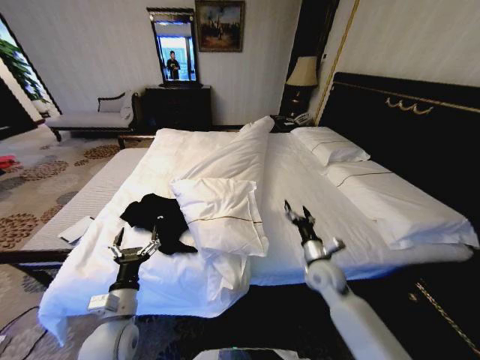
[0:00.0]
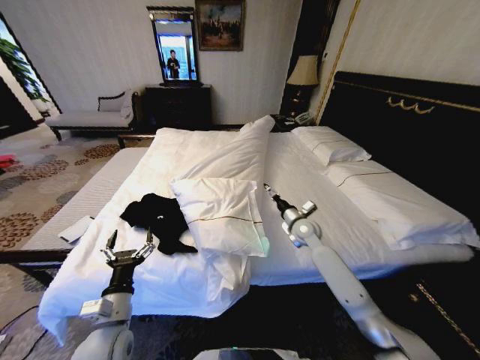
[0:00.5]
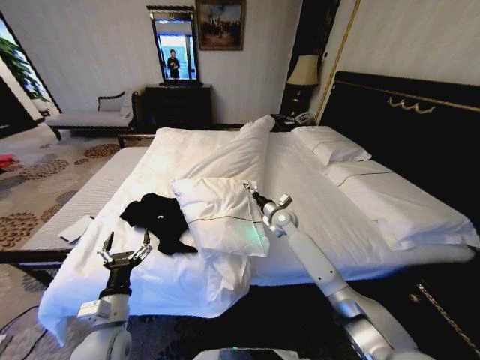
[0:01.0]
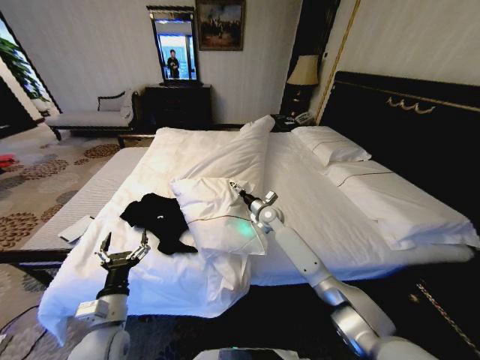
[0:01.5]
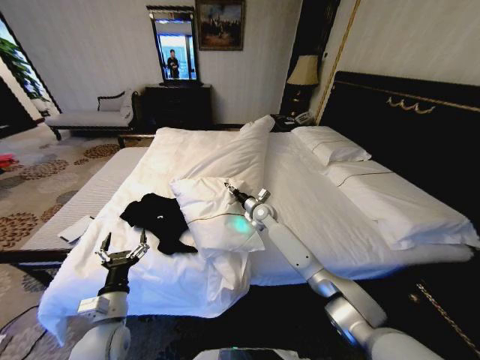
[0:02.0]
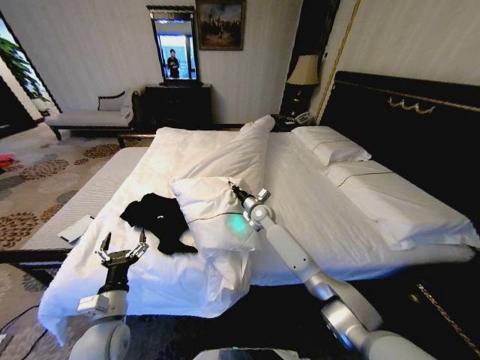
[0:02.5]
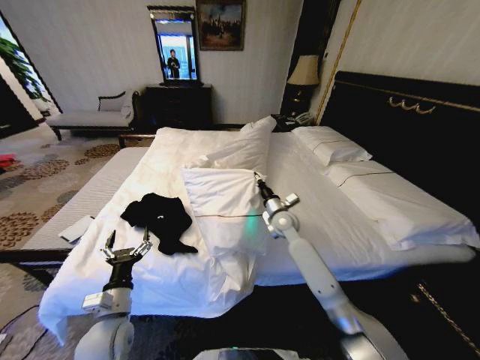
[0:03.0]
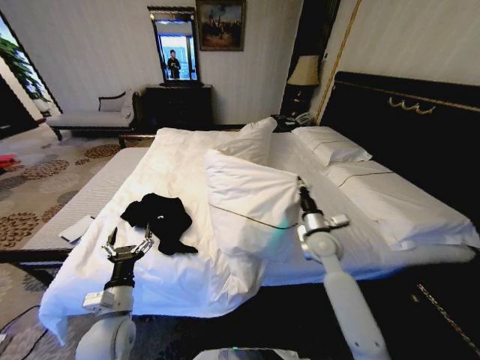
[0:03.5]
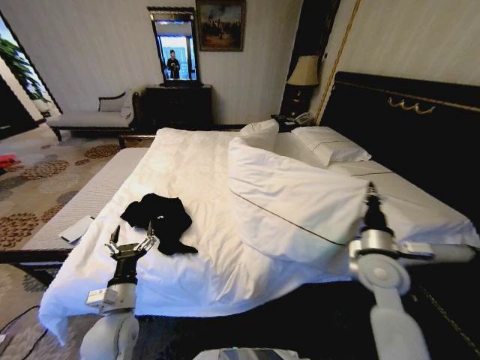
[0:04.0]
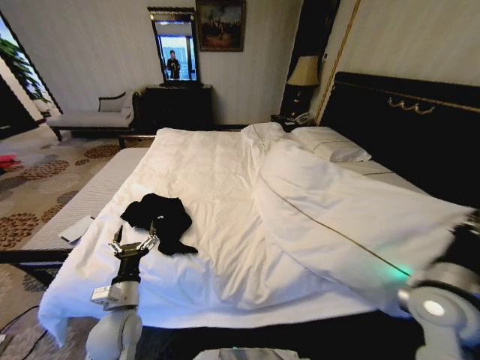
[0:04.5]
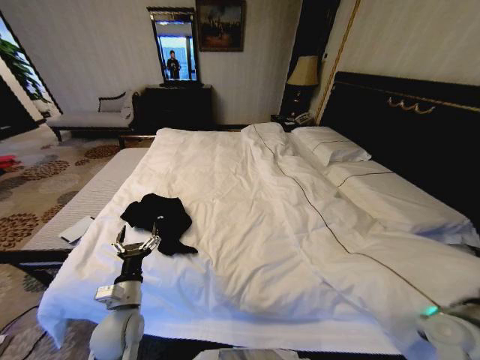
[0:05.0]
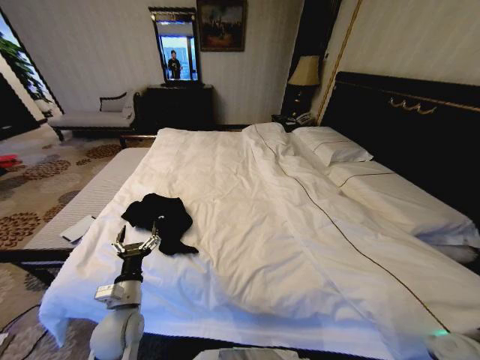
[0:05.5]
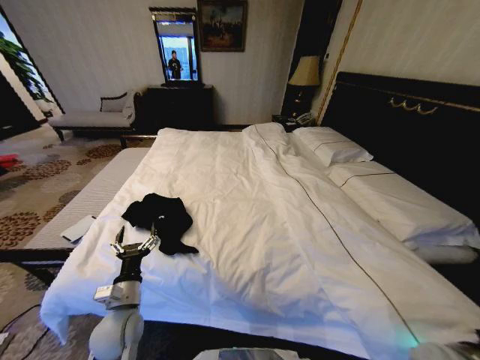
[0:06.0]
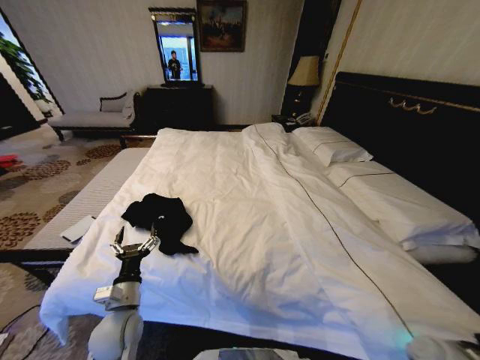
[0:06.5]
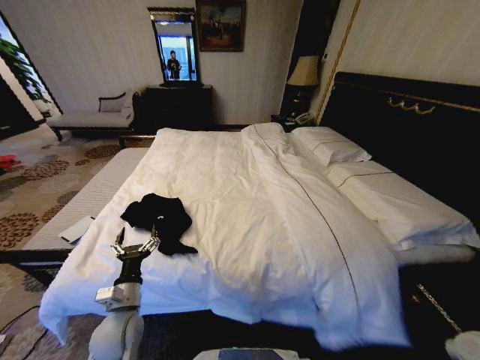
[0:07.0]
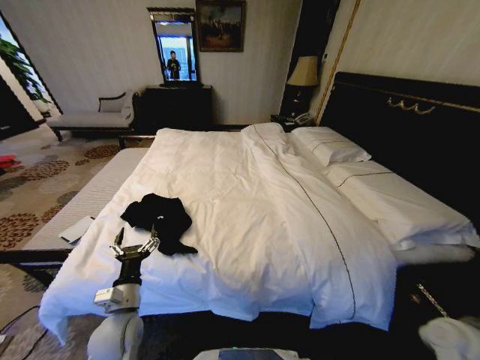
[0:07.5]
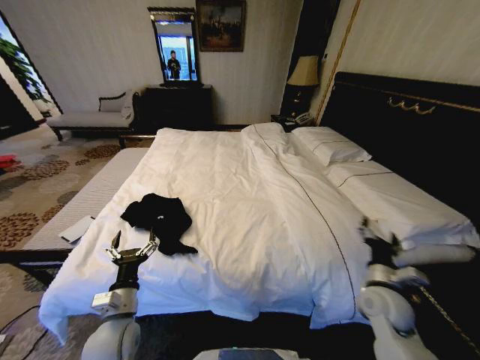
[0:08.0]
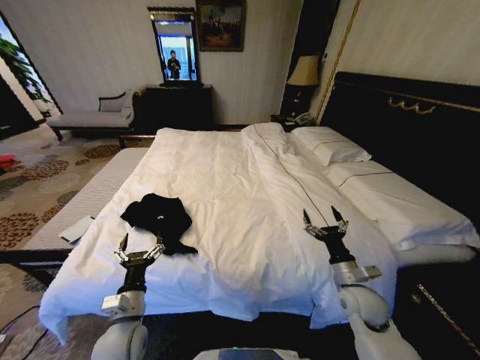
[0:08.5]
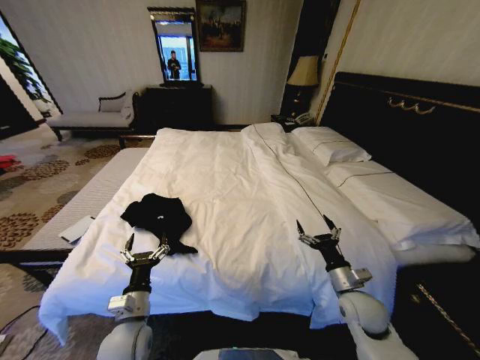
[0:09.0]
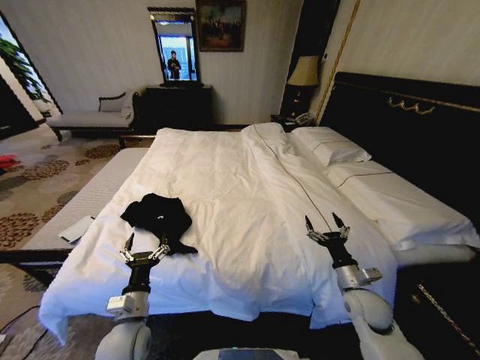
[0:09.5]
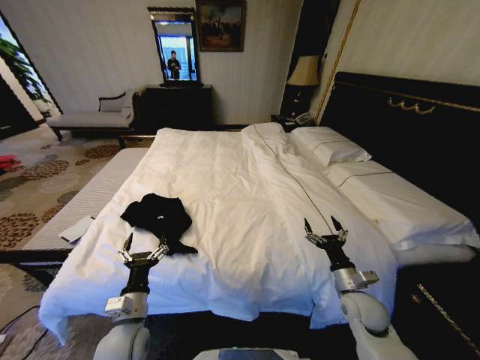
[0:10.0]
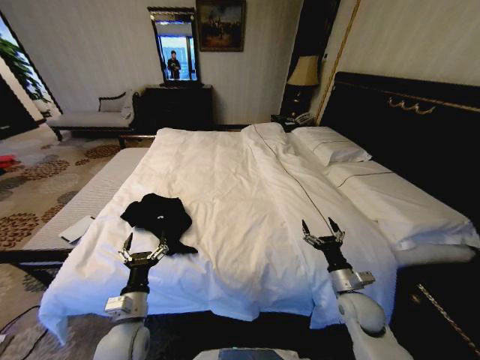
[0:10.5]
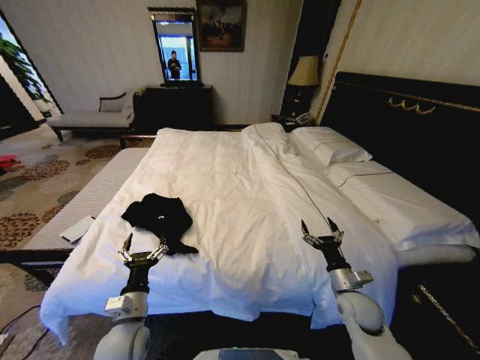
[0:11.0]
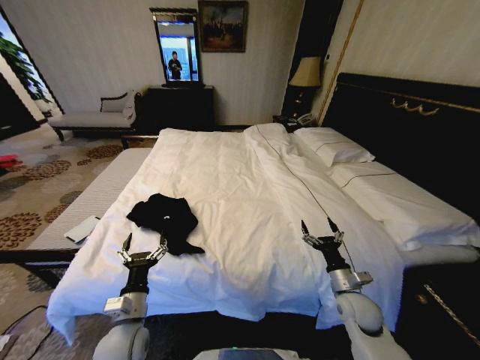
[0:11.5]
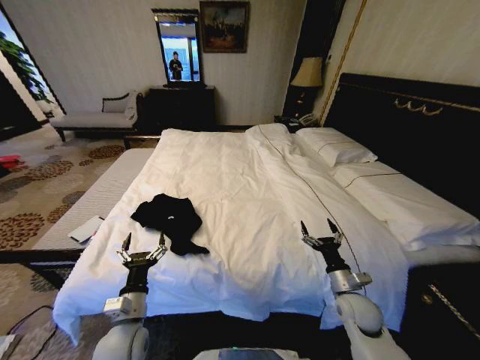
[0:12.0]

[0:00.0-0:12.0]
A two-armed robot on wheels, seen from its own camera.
Task of the whole recording: Fold the clothes on the bed.
0:00.0 to 0:02.0: The right gripper moves forward and to the left, some 25 cm.
0:02.0 to 0:04.0: The right gripper heads backward and to the right, covering roughly 35 cm, and closes its fingers.
0:04.0 to 0:06.0: The right gripper goes roughly 25 cm backward, downward and to the right.
0:06.0 to 0:08.0: The right gripper shifts approximately 15 cm to the left, forward and upward, and opens its fingers.
0:08.0 to 0:10.0: The right gripper moves approximately 5 cm.
0:10.0 to 0:12.0: Both grippers stay put.

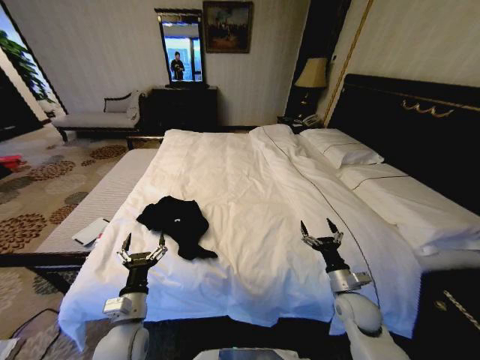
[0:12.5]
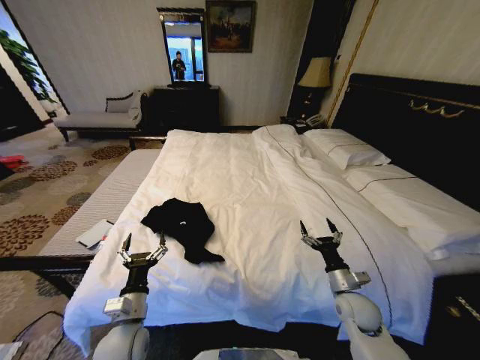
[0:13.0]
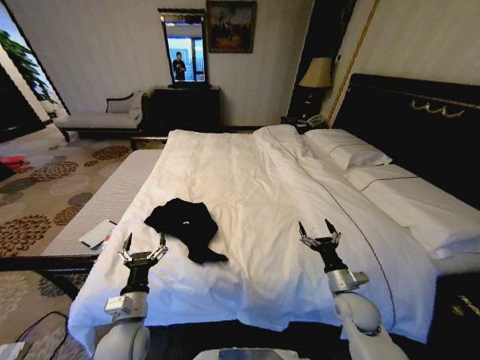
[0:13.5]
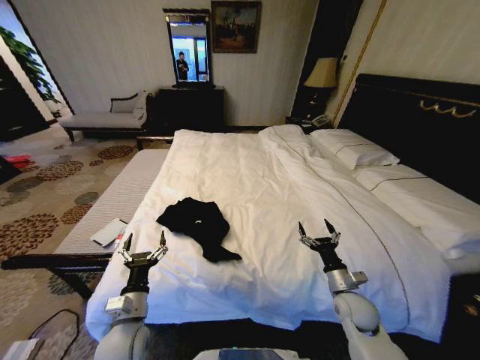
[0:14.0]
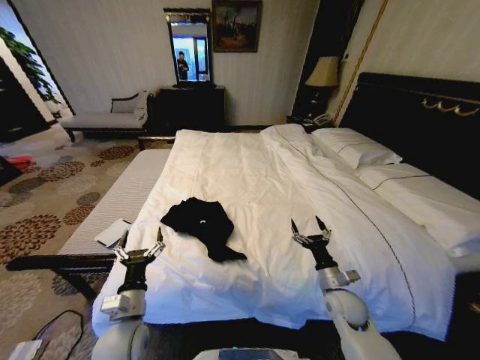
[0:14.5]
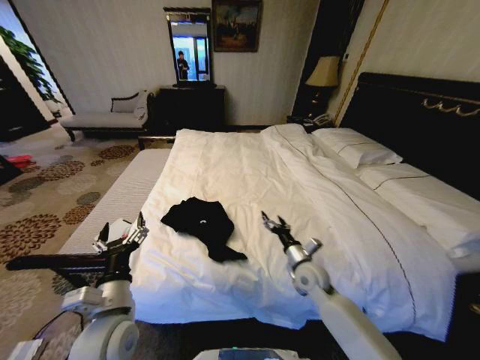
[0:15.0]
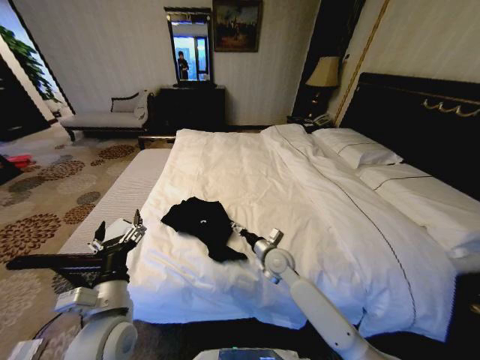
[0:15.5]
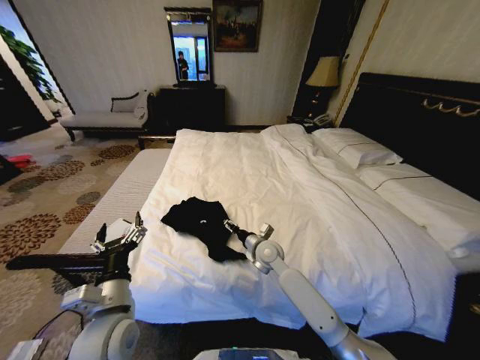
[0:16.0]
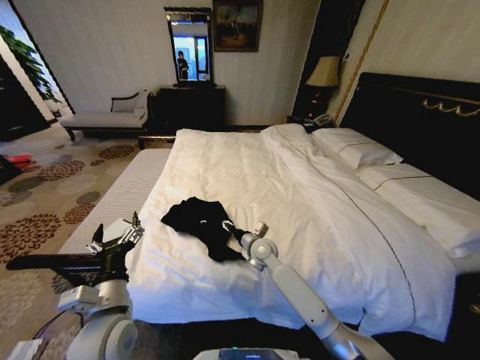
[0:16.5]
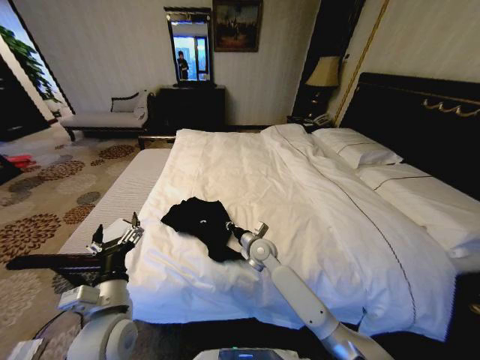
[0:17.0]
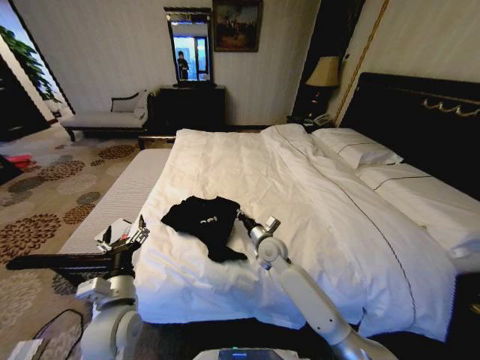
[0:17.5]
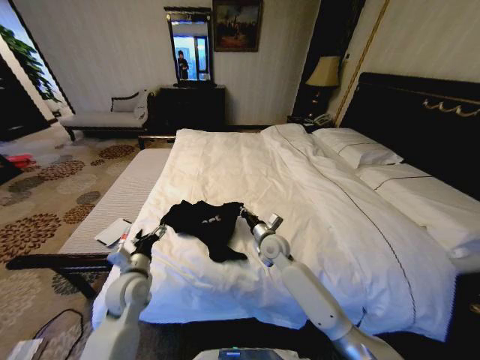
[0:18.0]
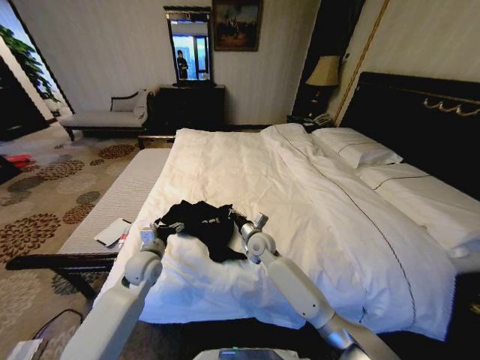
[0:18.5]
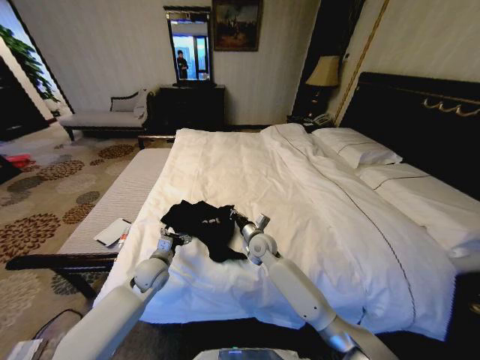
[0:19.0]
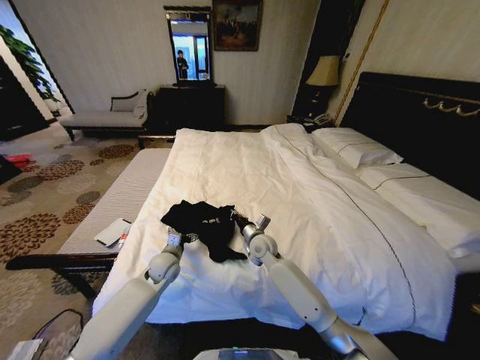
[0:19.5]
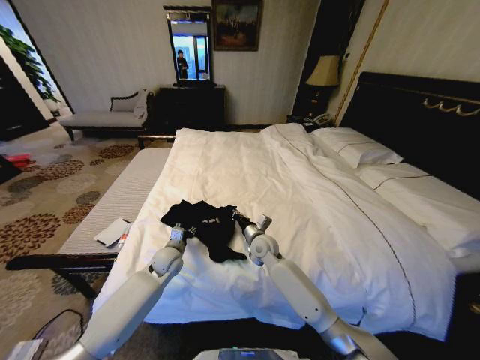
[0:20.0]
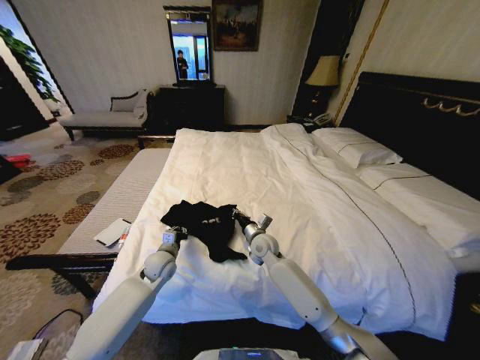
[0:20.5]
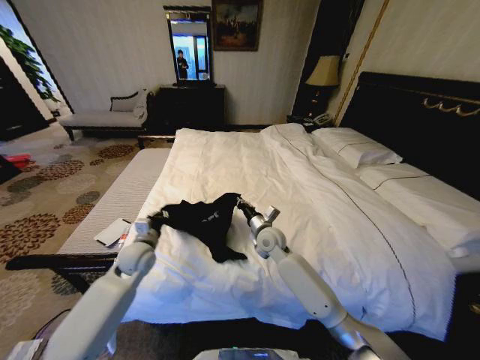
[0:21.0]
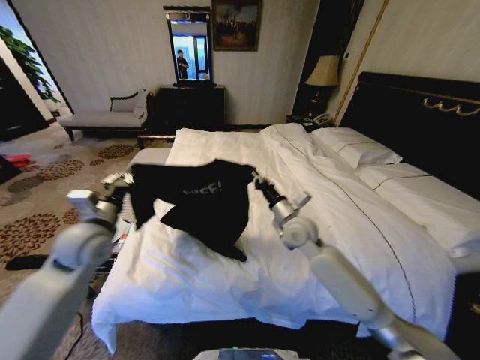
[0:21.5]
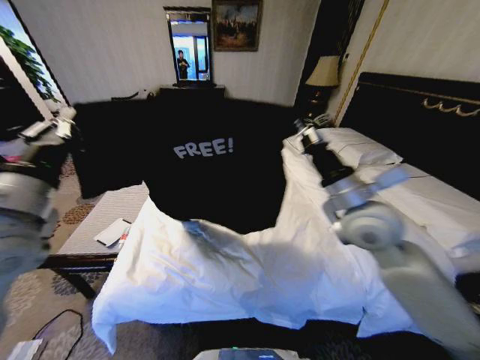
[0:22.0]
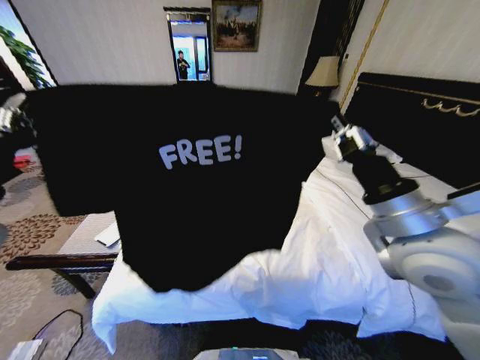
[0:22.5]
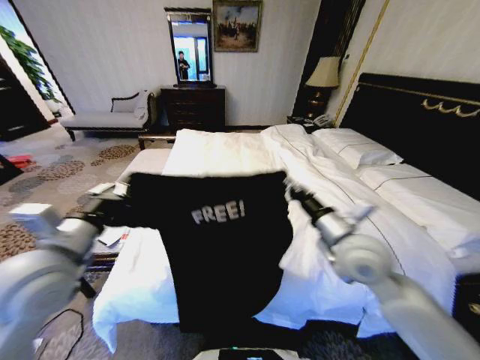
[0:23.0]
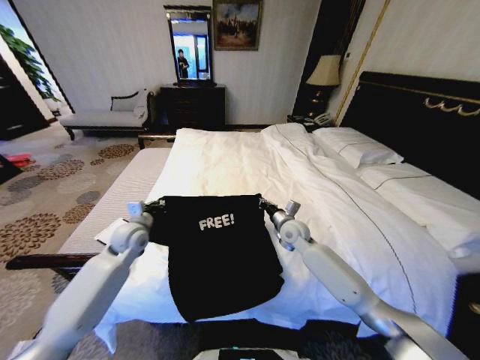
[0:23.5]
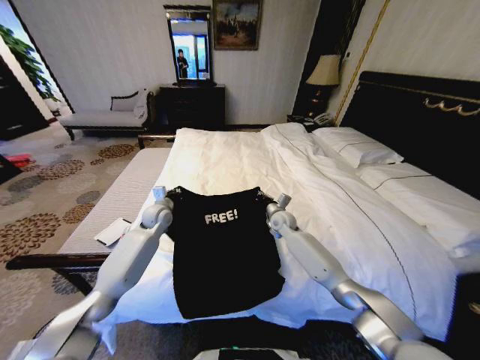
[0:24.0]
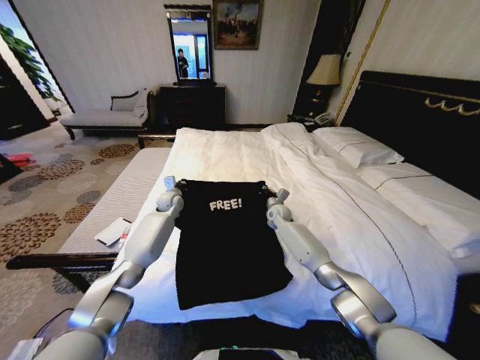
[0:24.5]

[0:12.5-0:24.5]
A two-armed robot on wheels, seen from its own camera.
Task of the whole recording: Fold the clothes on the bed.
0:14.5 to 0:16.5: The right gripper goes approximately 25 cm to the left and forward, while the left gripper is displaced upward by roughly 10 cm.
0:16.5 to 0:18.5: The right gripper closes its fingers. Meanwhile the left gripper is displaced forward and downward by some 20 cm.
0:18.5 to 0:20.5: The left gripper ends up approximately 5 cm from where it was, and closes.
0:20.5 to 0:22.5: The right gripper moves upward, backward and to the right, some 40 cm. Meanwhile the left gripper is displaced upward and backward by approximately 40 cm.
0:22.5 to 0:24.5: Both grippers travel together forward and downward, about 50 cm.

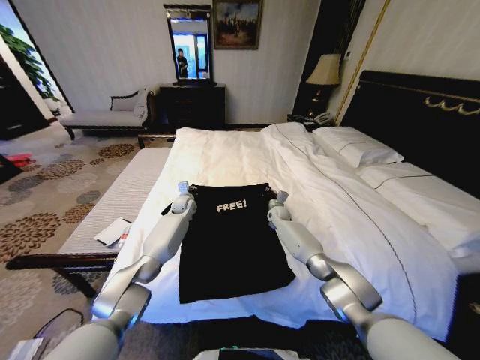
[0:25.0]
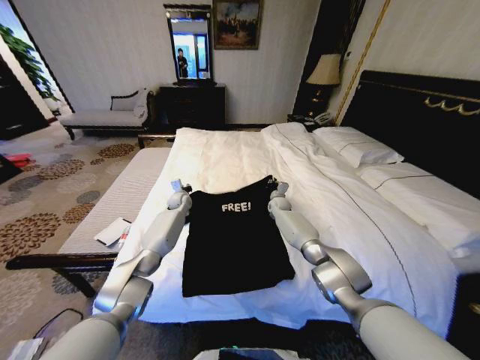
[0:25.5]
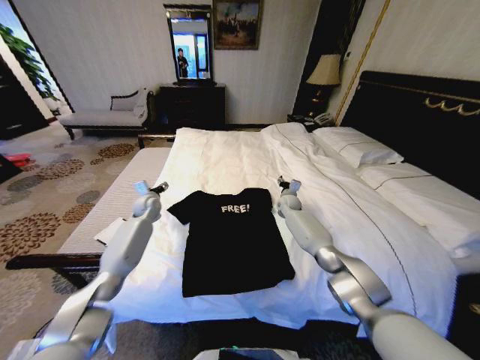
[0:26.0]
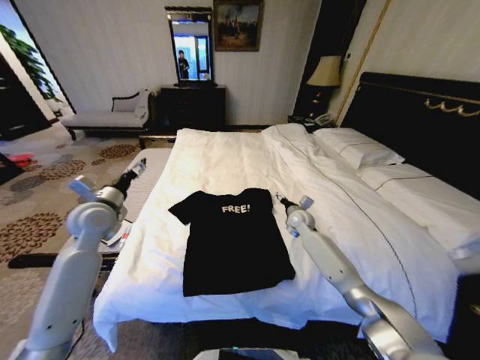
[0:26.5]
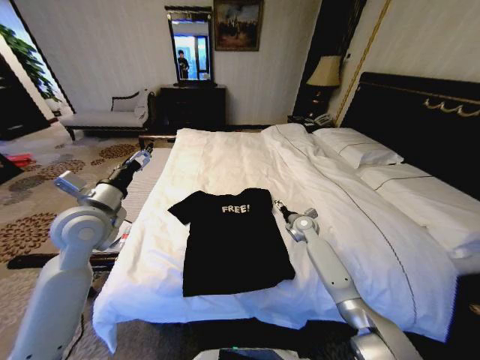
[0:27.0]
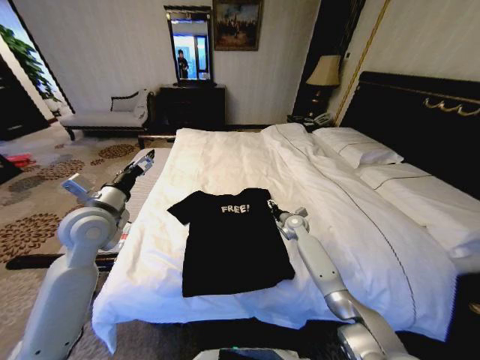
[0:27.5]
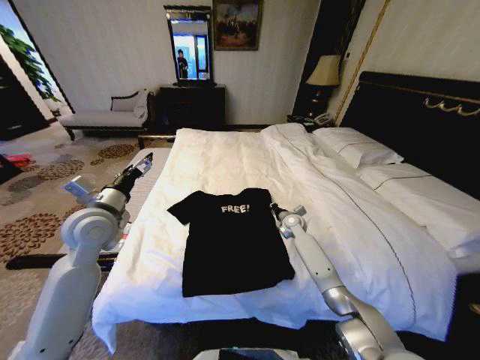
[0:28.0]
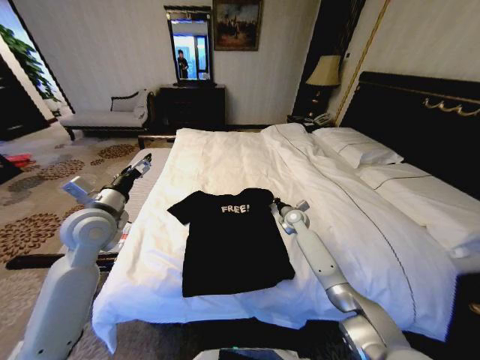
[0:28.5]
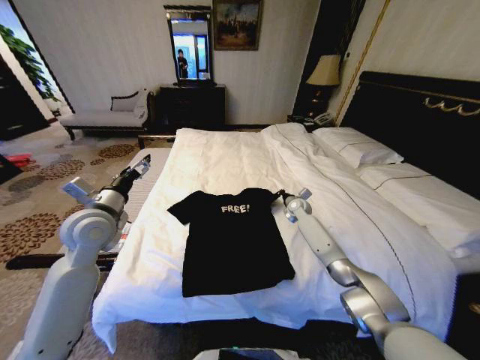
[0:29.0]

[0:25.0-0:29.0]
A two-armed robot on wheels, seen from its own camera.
Task of the whole recording: Fold the clothes on the bed.
0:25.0 to 0:27.0: The left gripper goes some 35 cm backward, upward and to the left, and opens. Meanwhile the right gripper goes approximately 10 cm backward and to the right, and opens up.
0:27.0 to 0:29.0: The right gripper heads forward, covering approximately 10 cm, and closes its fingers.
